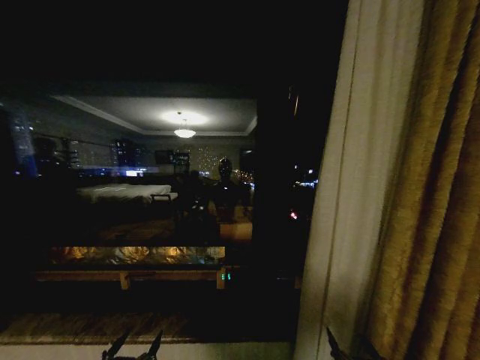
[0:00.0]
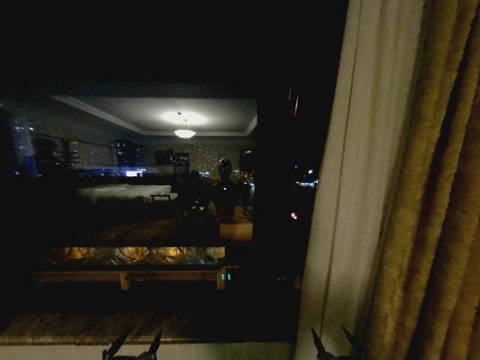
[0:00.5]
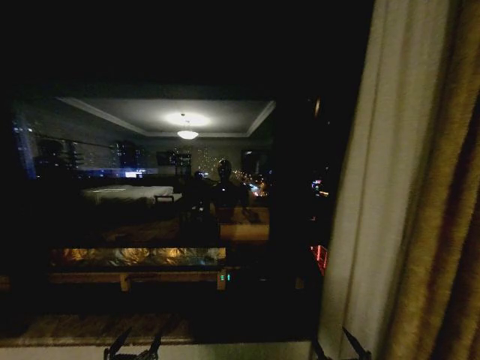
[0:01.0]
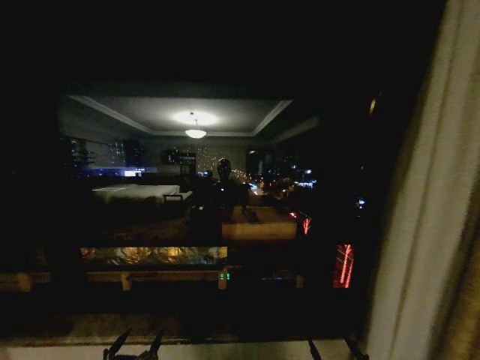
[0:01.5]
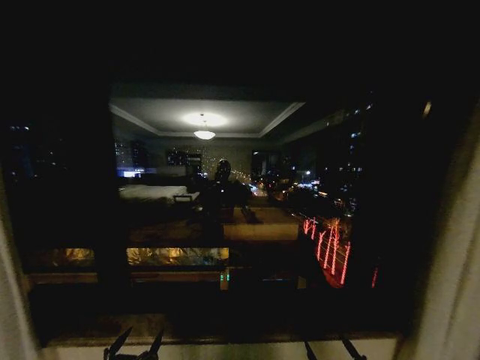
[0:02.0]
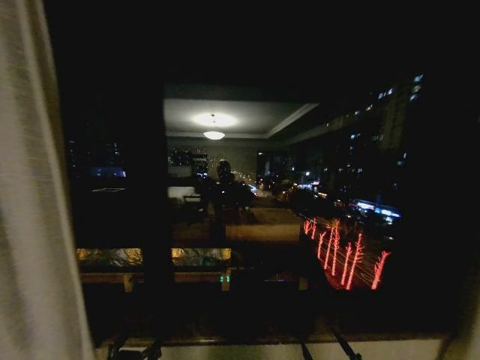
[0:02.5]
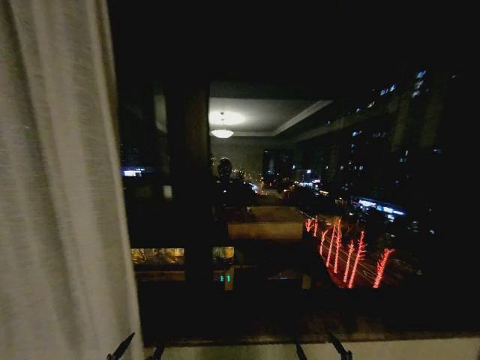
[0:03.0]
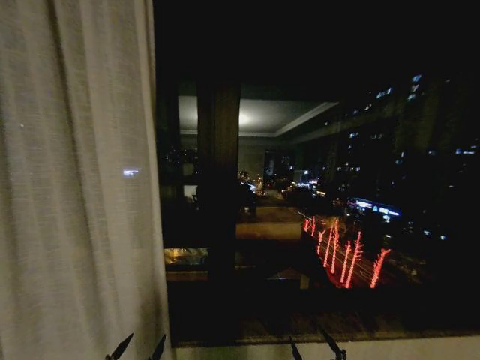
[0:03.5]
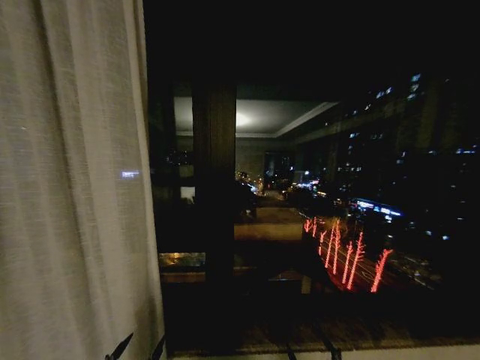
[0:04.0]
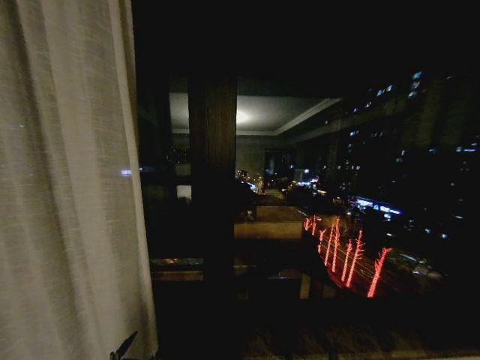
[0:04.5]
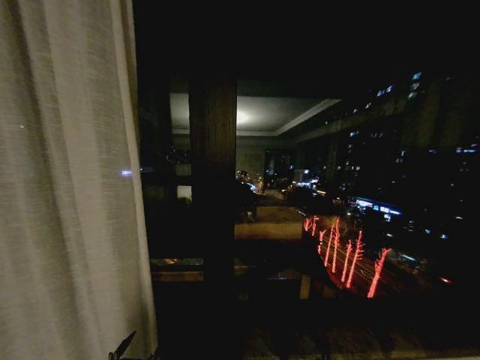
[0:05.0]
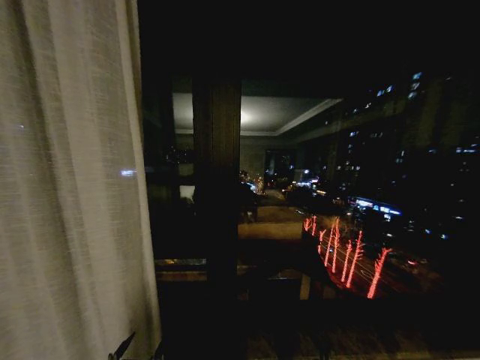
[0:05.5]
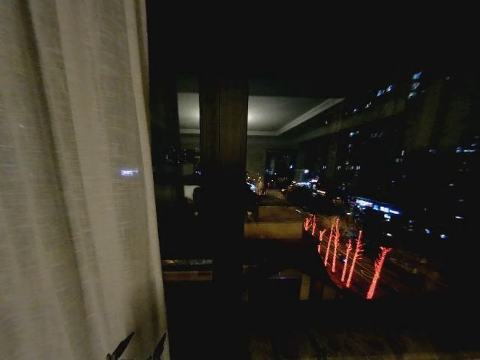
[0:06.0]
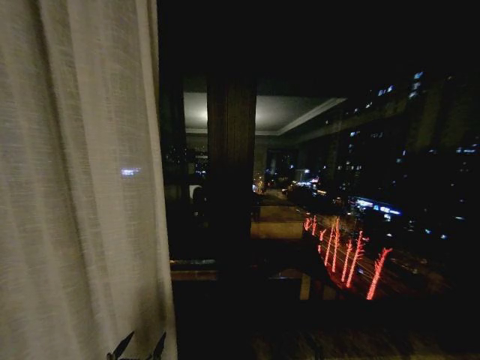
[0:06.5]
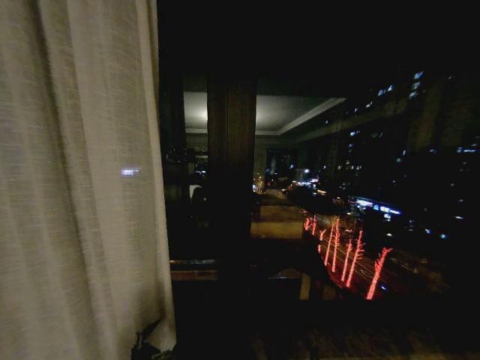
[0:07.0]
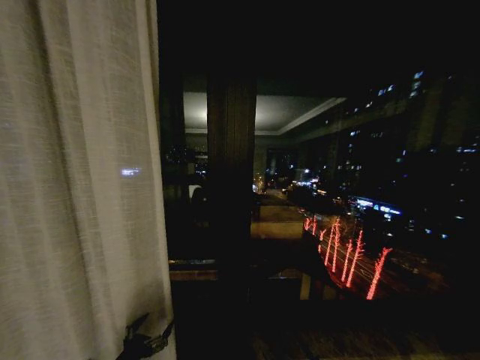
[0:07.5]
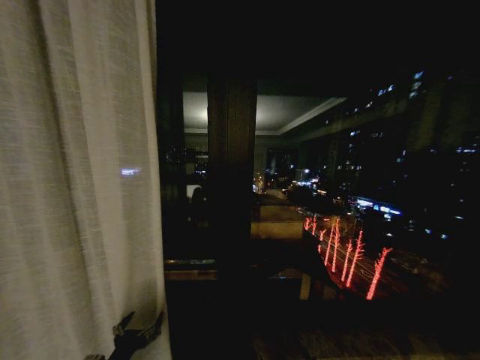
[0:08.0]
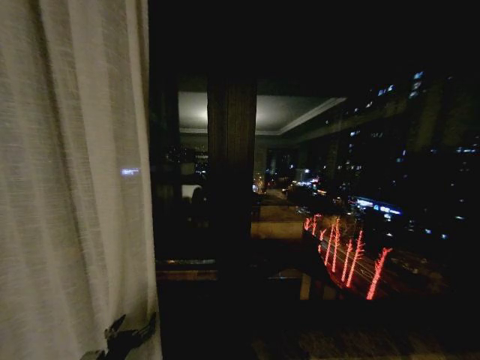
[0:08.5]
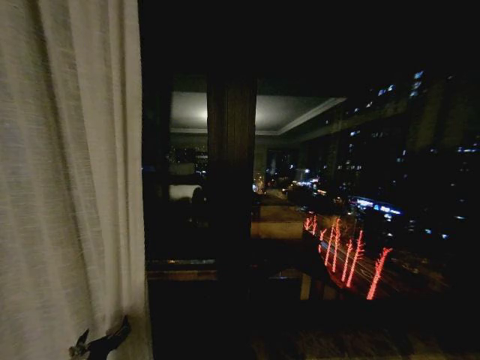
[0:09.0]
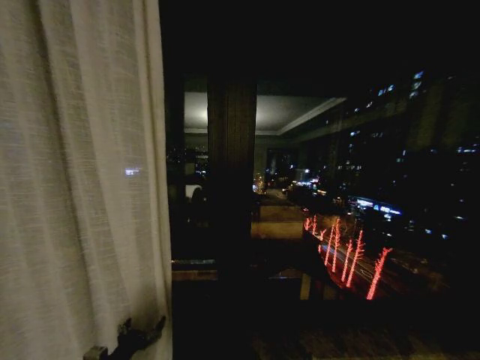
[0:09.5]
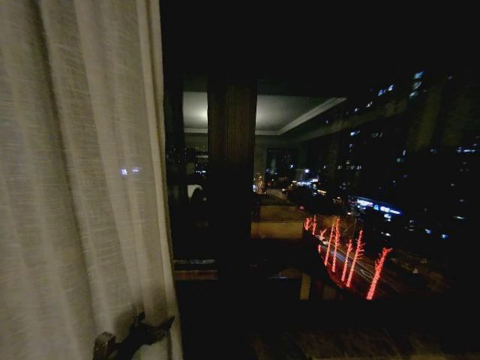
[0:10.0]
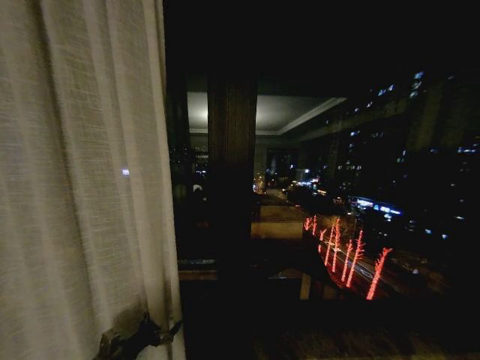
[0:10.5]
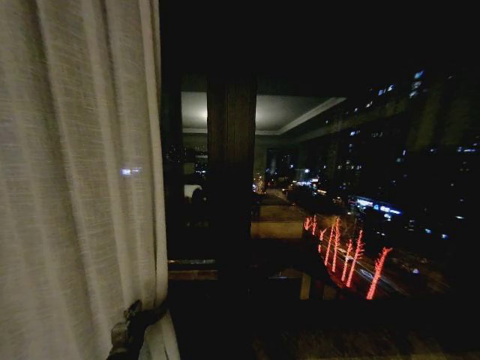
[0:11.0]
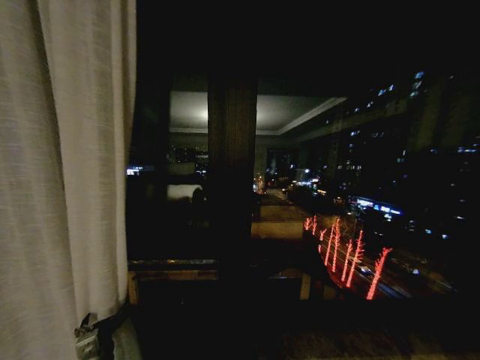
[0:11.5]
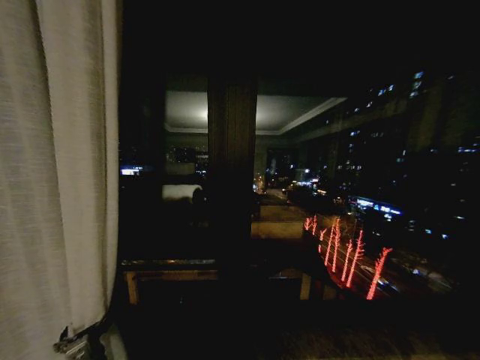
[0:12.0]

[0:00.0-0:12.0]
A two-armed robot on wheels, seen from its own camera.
Task of the whole recording: Open the curtains by pulling them apart, changing their state from closed to fully open.
0:00.0 to 0:02.0: The right gripper ends up roughly 5 cm from where it was.
0:04.0 to 0:06.0: There are only small adjustments of the grippers.
0:06.0 to 0:08.0: The left gripper moves forward, about 10 cm.
0:08.0 to 0:10.0: The left gripper shifts approximately 5 cm forward.

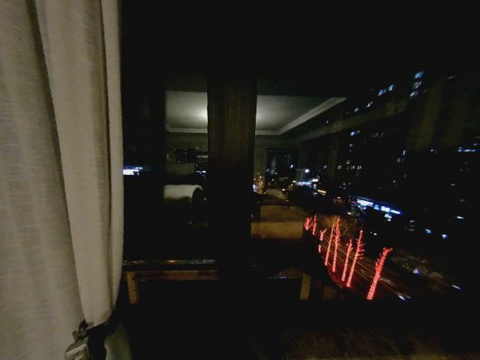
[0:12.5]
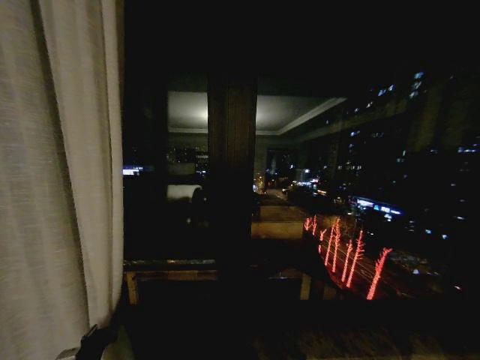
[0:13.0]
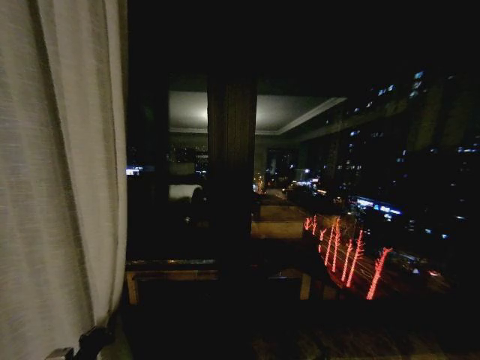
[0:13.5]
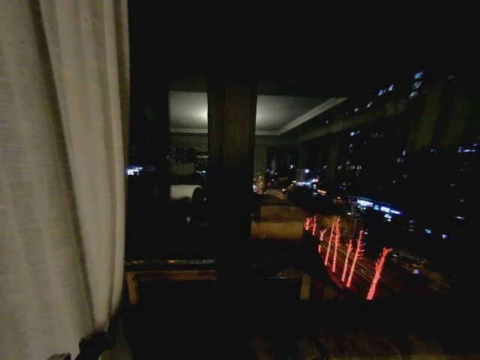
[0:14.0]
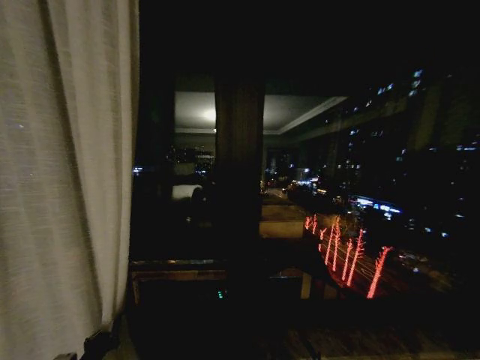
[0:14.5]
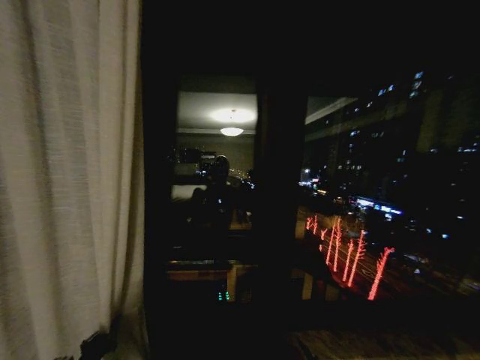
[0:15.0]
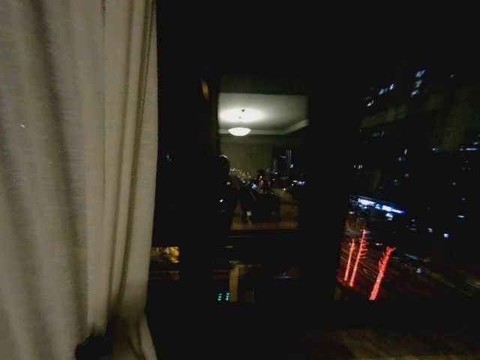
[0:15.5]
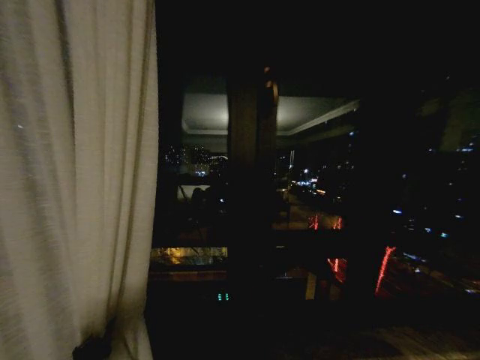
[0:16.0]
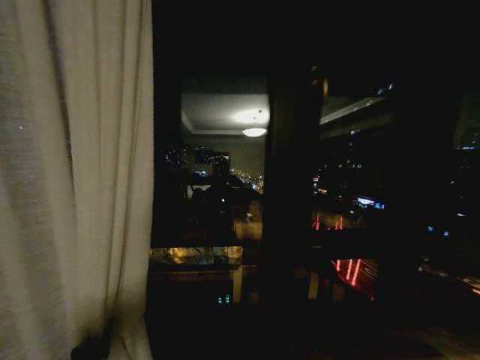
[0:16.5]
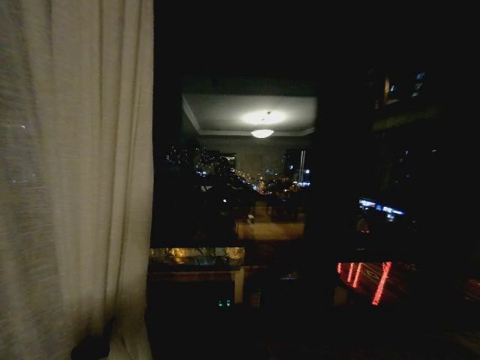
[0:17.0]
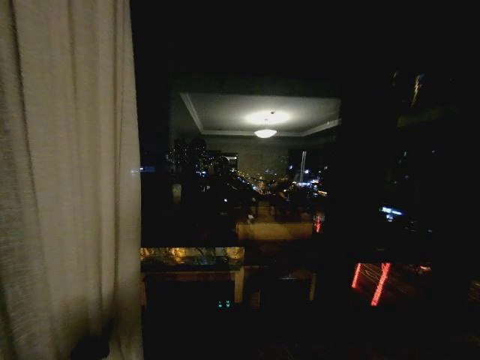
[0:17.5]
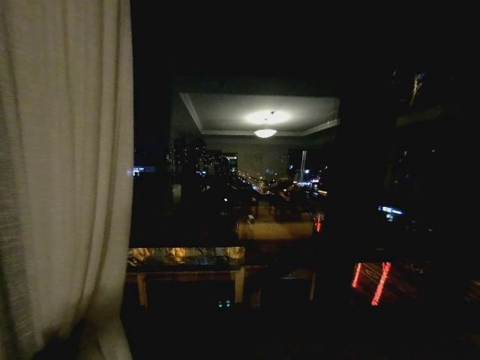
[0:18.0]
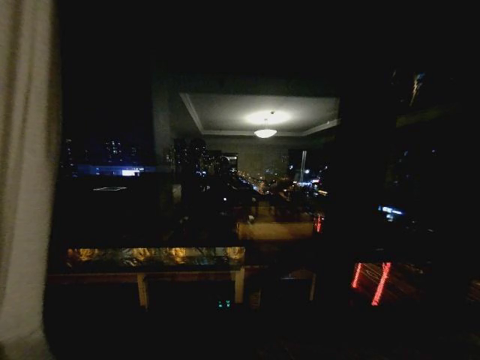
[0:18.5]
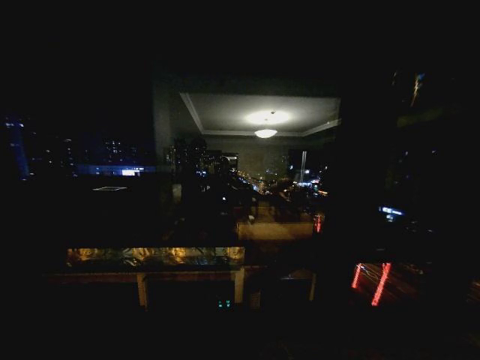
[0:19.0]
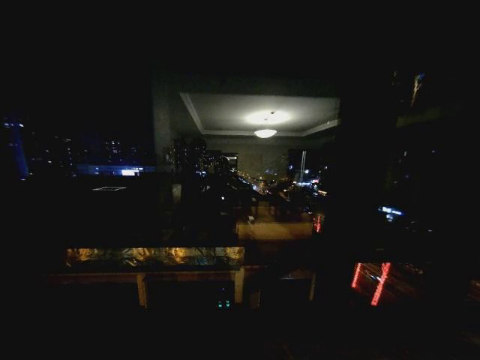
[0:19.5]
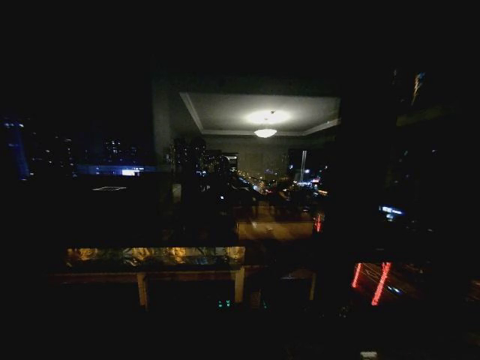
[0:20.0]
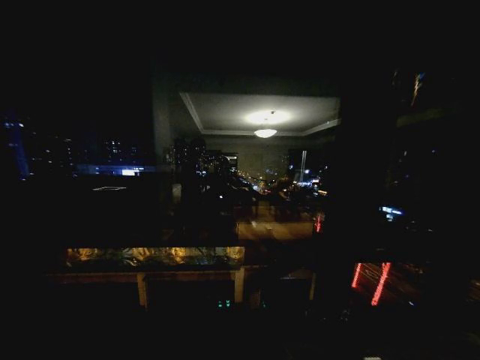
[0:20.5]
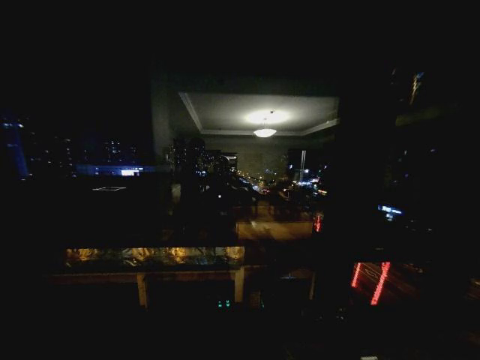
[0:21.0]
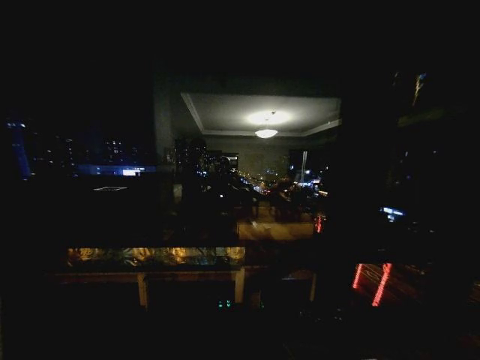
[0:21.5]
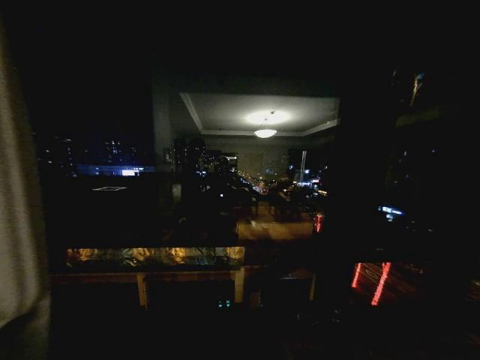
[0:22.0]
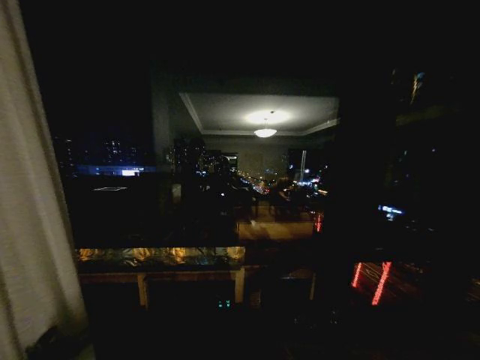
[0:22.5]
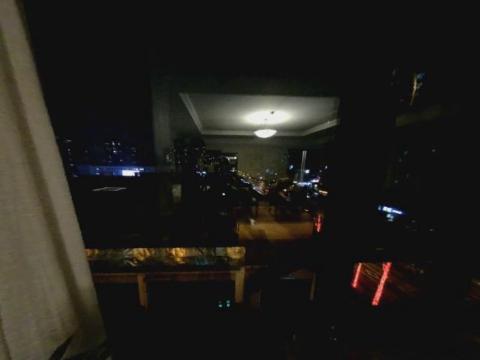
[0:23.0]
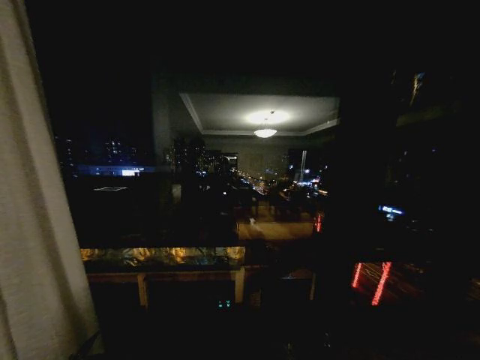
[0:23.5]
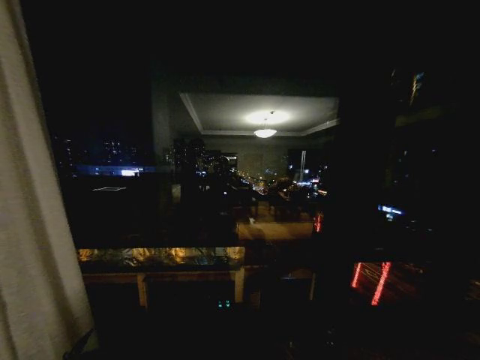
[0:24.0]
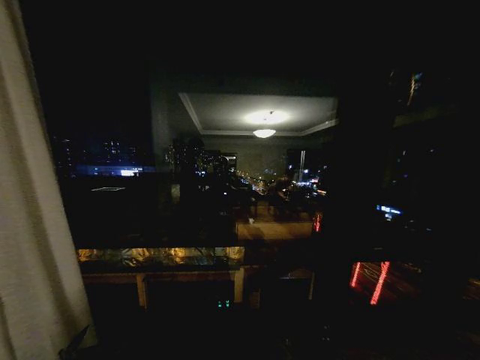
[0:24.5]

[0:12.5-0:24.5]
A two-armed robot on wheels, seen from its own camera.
Task of the whole recording: Open the curtains by pulling them apart, changing their state from closed to fully open.
0:12.5 to 0:14.5: The left gripper moves approximately 5 cm, and closes up.
0:16.5 to 0:18.5: The left gripper shifts approximately 20 cm to the left.
0:18.5 to 0:20.5: The left gripper moves to the left, some 20 cm.
0:20.5 to 0:22.5: The left gripper moves to the right, about 40 cm, and opens up.
0:22.5 to 0:24.5: The left gripper goes roughly 5 cm to the right.
